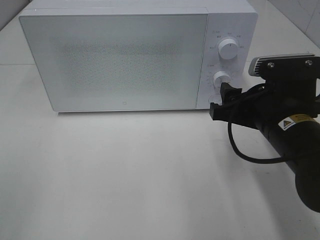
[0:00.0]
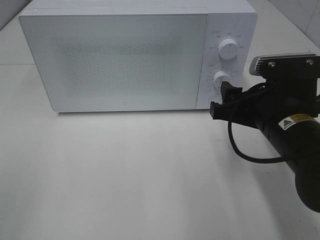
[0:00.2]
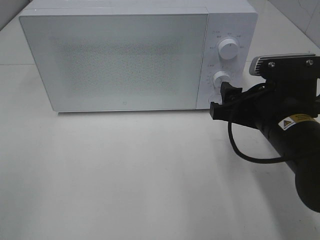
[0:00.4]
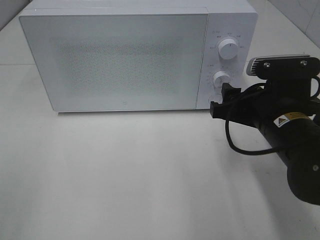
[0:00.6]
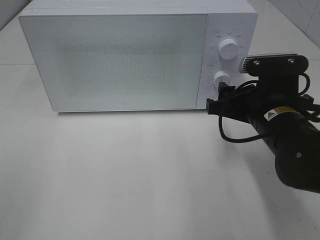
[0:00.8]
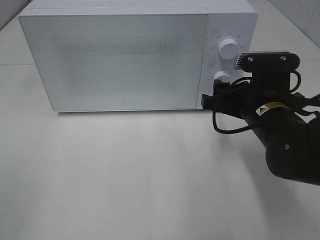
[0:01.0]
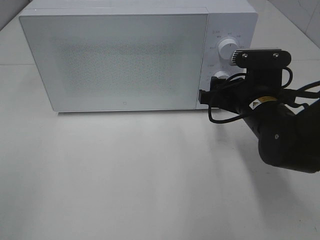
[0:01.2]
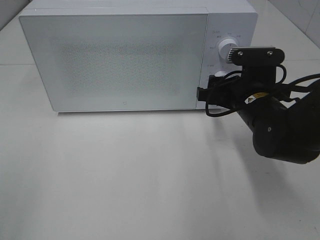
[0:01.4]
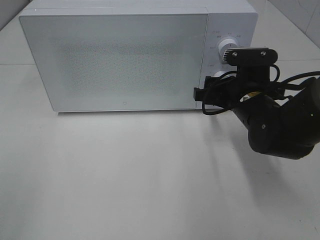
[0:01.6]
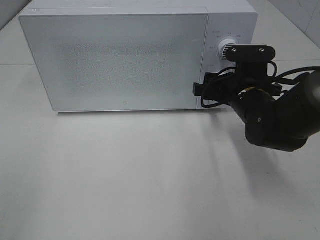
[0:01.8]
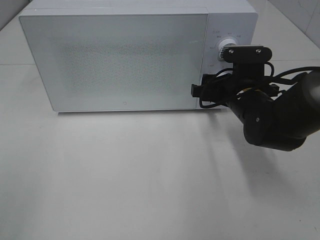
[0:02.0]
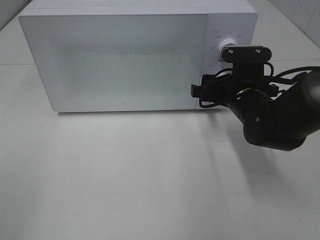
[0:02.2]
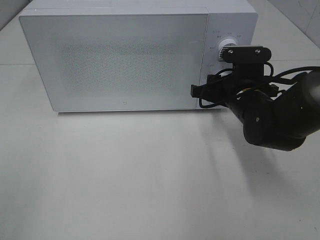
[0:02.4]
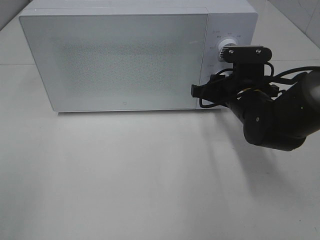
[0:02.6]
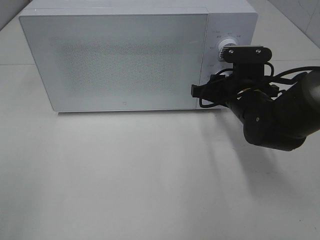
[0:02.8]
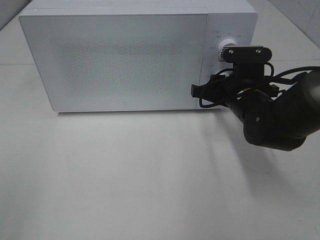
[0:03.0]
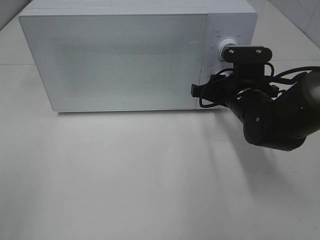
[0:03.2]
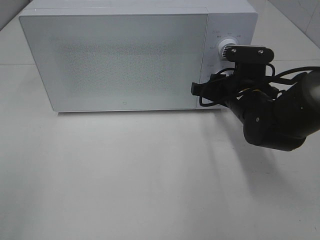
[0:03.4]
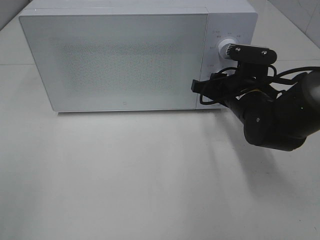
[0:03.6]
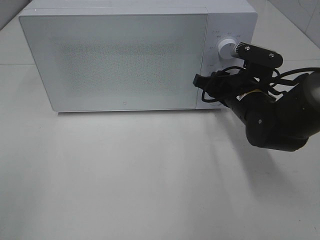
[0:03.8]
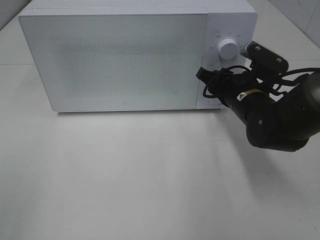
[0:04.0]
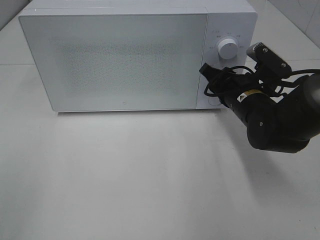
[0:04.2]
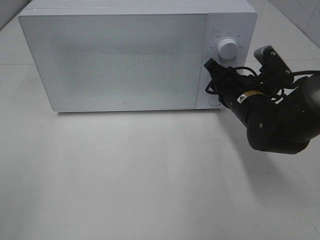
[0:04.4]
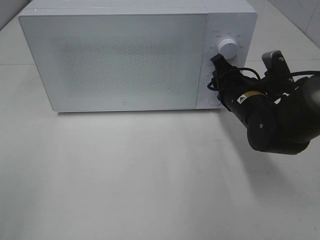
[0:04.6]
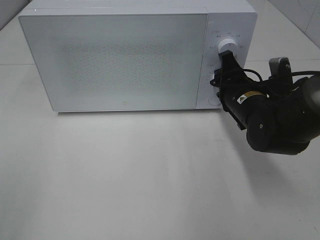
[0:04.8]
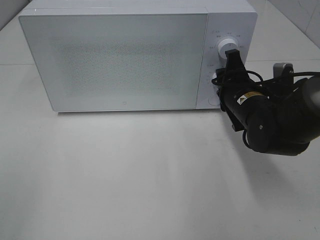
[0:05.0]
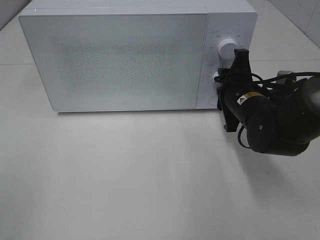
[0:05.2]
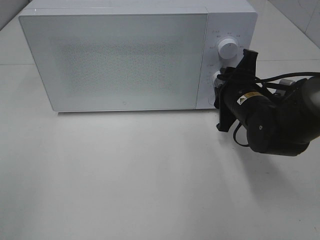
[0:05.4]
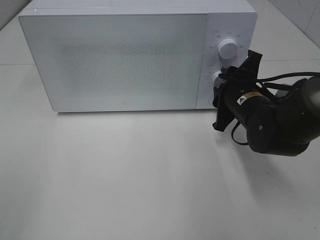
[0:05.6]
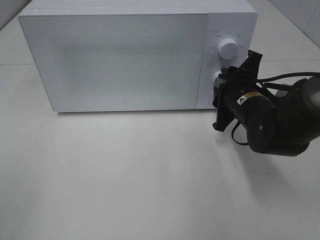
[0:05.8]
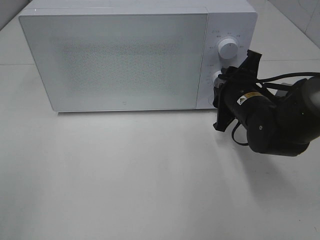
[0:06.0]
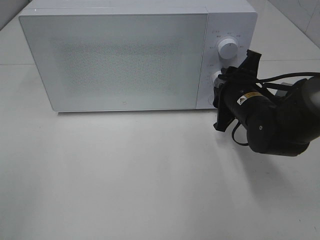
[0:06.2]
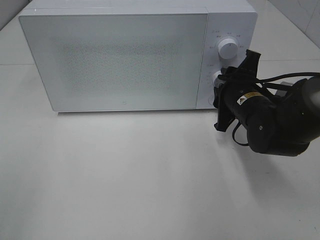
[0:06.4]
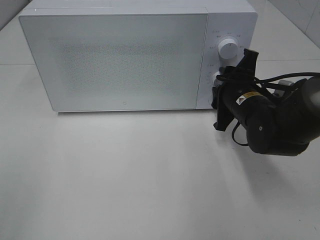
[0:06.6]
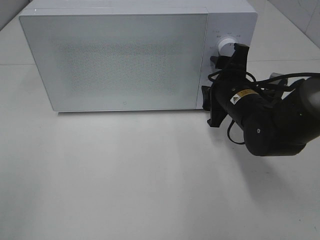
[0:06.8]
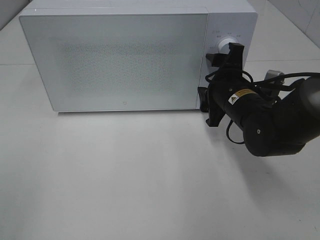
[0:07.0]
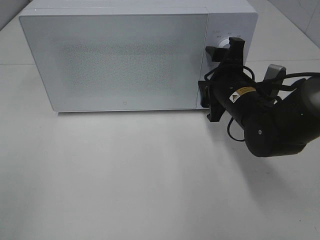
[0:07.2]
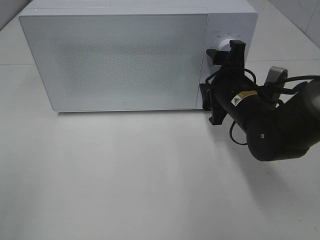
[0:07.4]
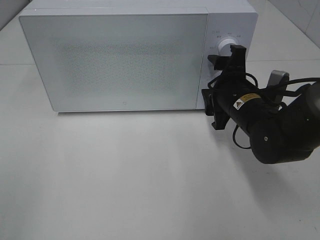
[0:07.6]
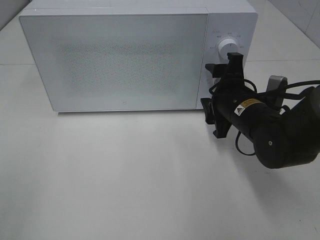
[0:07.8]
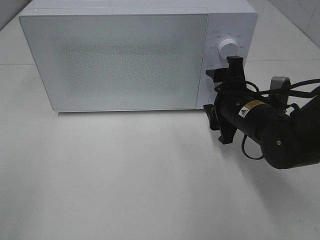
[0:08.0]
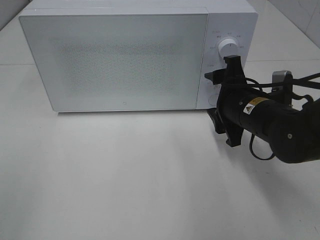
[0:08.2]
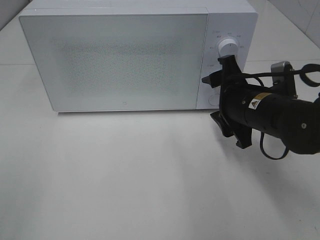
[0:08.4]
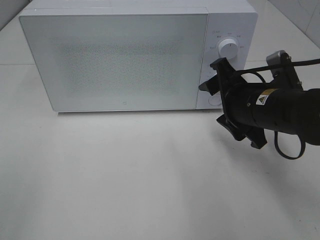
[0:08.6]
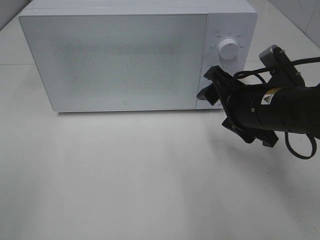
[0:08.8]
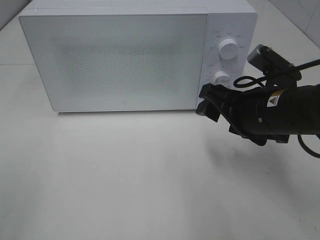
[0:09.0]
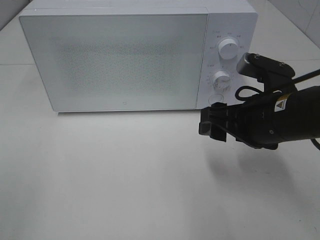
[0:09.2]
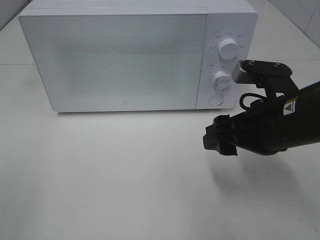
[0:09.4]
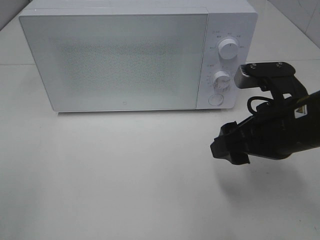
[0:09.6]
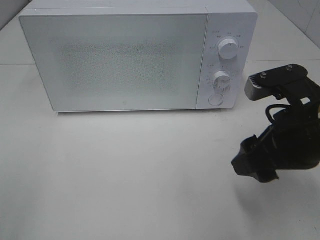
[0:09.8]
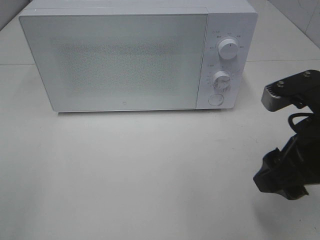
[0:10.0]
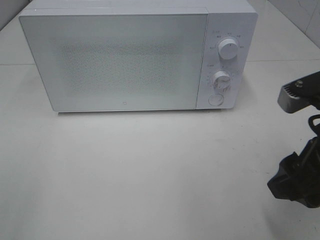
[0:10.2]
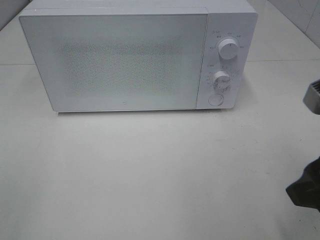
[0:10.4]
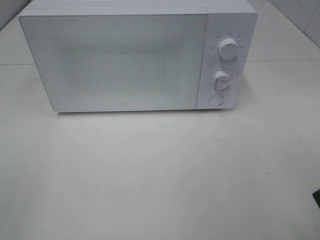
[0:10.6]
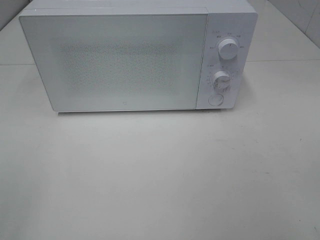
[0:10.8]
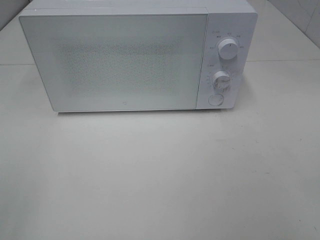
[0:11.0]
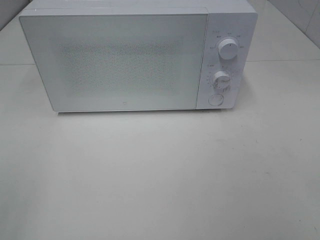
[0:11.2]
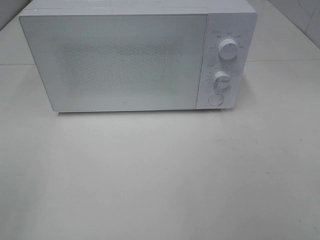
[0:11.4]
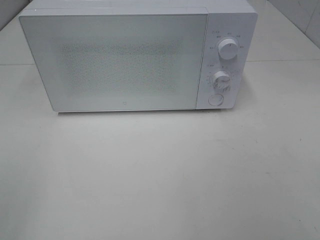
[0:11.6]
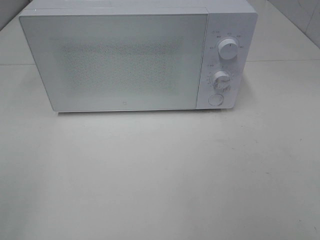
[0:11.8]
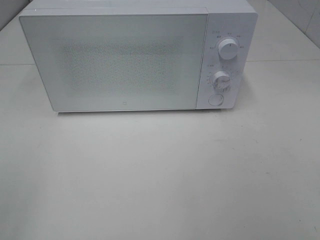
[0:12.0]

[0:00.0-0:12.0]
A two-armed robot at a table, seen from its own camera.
Task of the whole recording: Heat Sandwich.
Step, 0:00.0 to 0:07.0: Right hand: twist timer button.
0:00.0 to 0:01.6: The right gripper shifts approximately 10 cm forward.
0:01.6 to 0:03.0: The right gripper closes up.
0:06.0 to 0:07.6: The right gripper opens up.
0:07.6 to 0:09.0: The right gripper goes roughly 5 cm backward.
0:09.0 to 0:10.4: The right gripper moves backward, upward and to the right, roughly 15 cm.
0:10.4 to 0:12.0: The right gripper is displaced backward and to the right by approximately 15 cm.

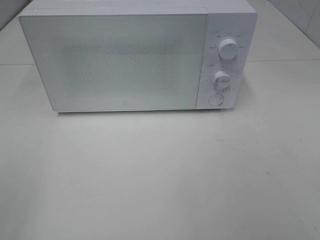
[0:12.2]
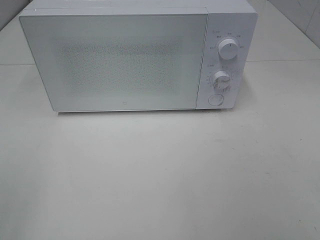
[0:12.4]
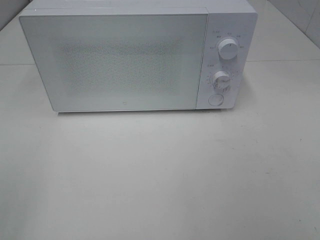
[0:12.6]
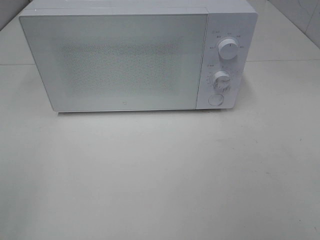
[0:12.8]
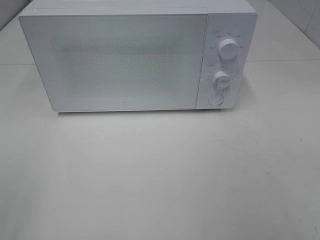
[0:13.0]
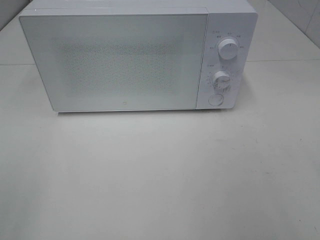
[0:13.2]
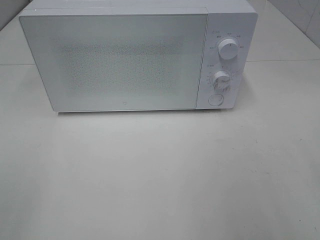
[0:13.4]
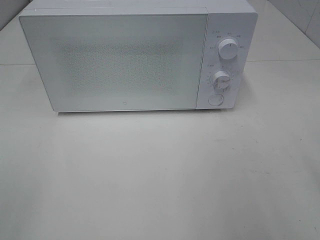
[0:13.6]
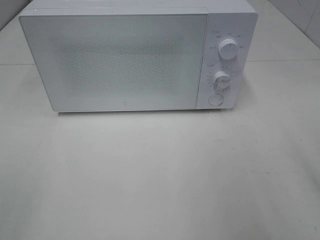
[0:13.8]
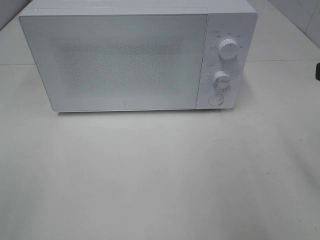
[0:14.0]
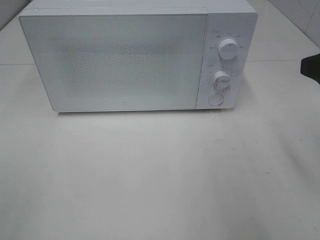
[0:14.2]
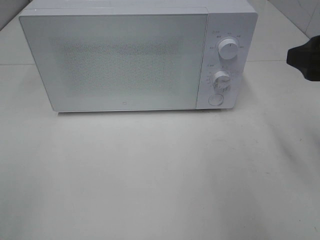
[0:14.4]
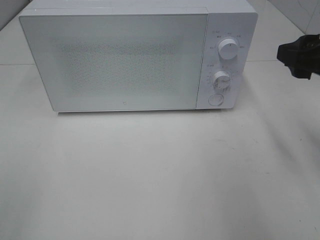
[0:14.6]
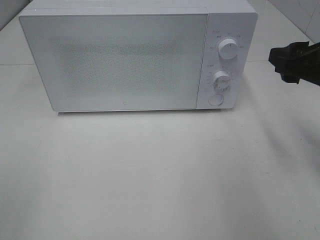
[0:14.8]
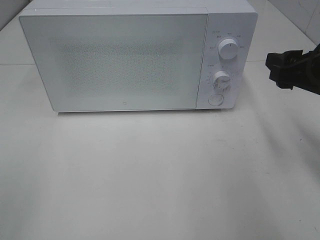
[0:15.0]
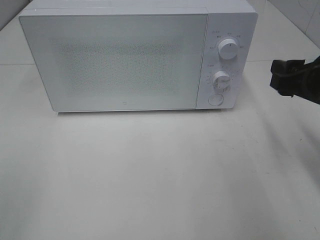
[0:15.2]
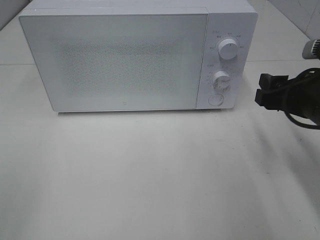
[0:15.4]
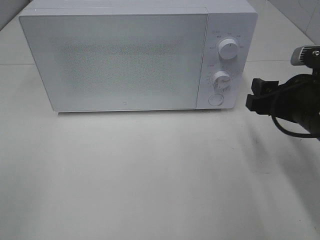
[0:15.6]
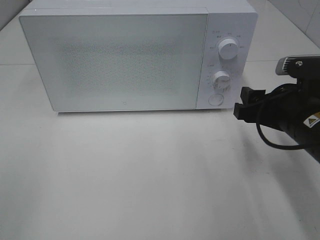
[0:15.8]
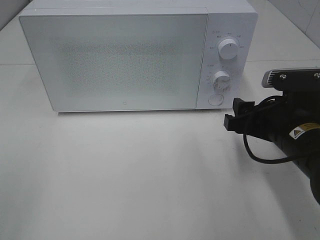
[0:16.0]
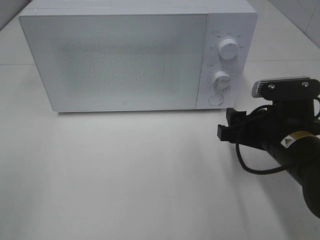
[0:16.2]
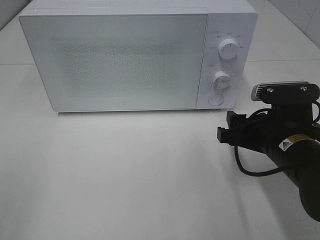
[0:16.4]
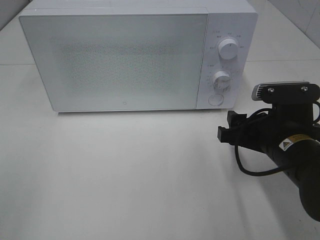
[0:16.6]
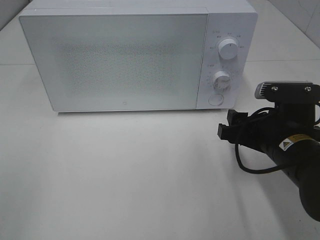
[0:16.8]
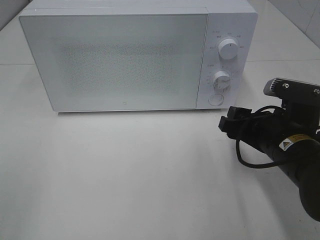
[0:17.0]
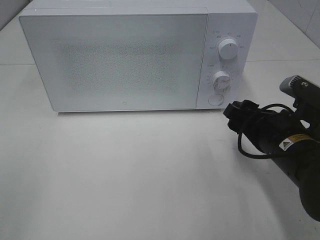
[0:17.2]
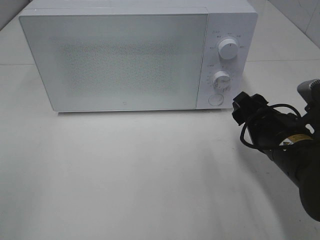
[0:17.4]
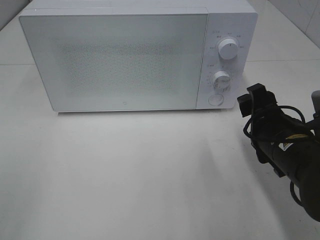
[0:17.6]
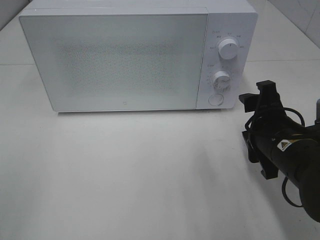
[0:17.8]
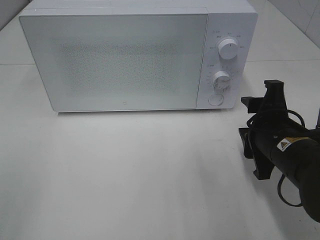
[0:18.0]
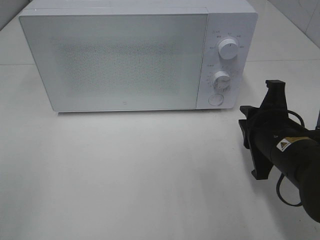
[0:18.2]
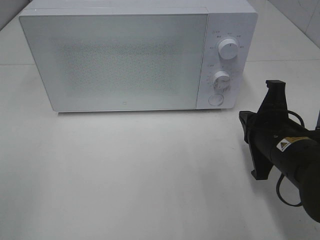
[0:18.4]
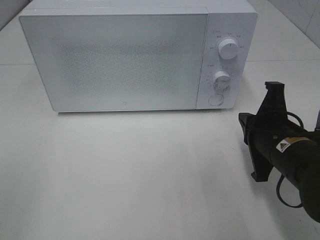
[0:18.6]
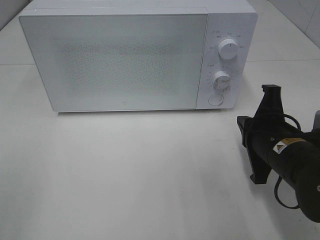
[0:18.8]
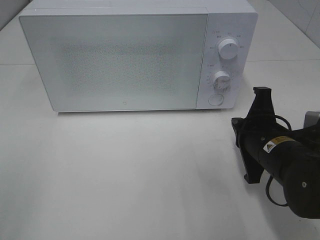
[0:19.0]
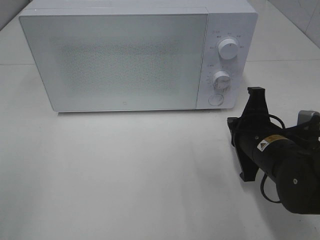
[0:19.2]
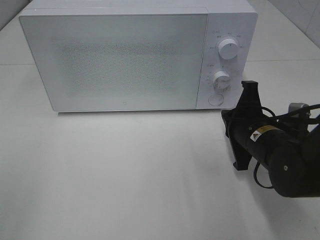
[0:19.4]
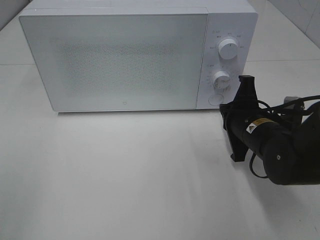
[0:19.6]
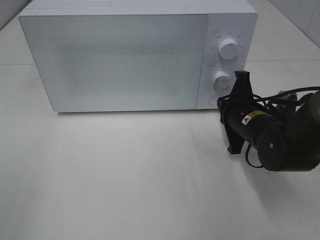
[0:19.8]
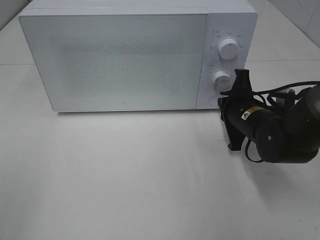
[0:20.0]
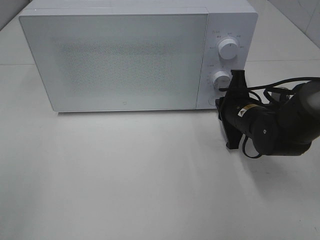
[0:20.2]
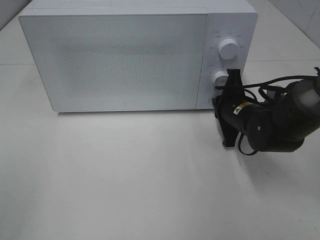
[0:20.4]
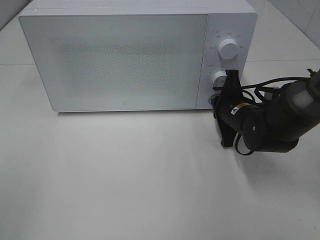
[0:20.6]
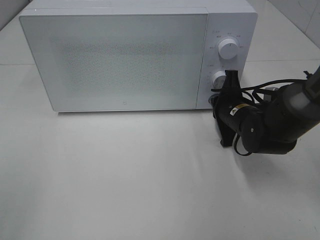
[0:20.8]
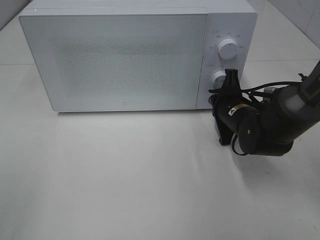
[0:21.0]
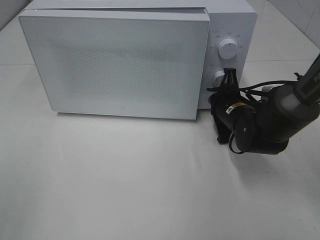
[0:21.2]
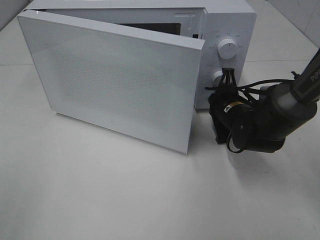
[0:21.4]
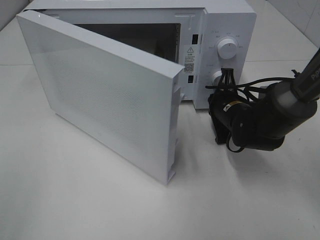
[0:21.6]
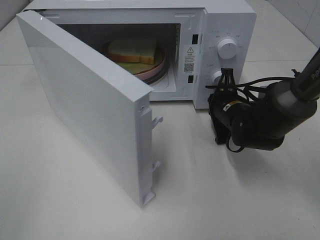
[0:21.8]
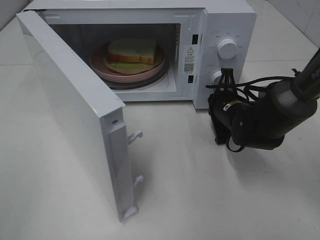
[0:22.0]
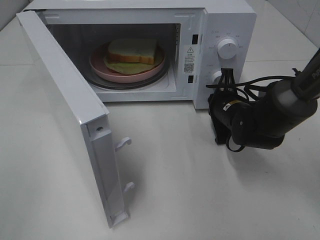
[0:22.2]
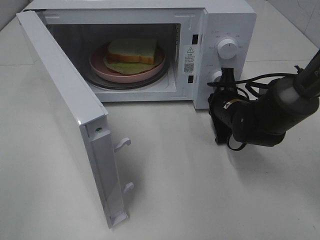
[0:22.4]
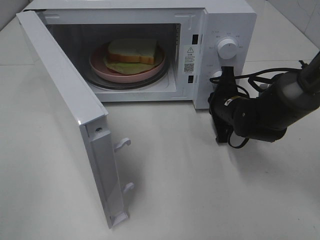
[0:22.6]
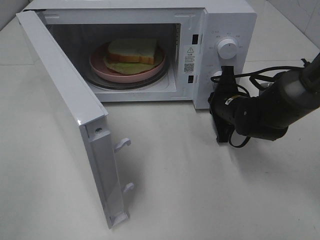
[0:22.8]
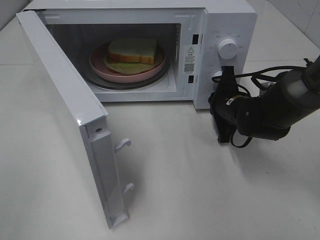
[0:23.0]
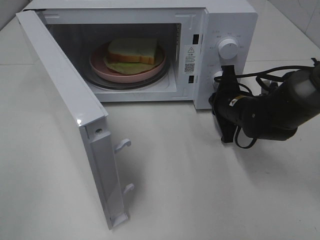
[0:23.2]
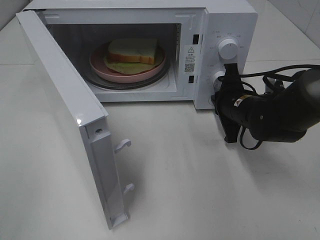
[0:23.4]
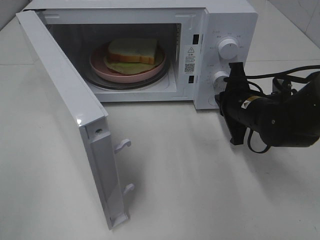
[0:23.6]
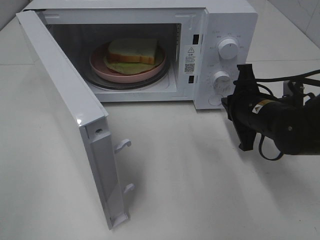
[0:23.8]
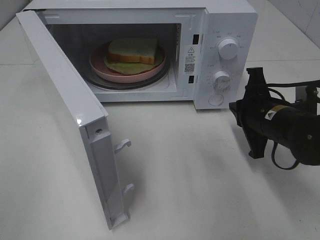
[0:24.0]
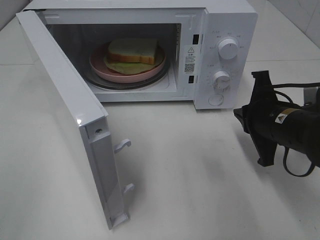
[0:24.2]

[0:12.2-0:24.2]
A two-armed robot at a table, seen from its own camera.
Task of the whole recording: Heat Sandwich.
Step, 0:12.2 to 0:23.6: Right hand: press the switch.
0:13.8 to 0:15.2: The right gripper heads downward and forward, covering approximately 15 cm.
0:15.2 to 0:16.6: The right gripper moves downward and to the left, approximately 10 cm.
0:16.6 to 0:18.2: The right gripper closes.
0:18.2 to 0:19.8: The right gripper is displaced forward by about 10 cm.
0:19.8 to 0:21.2: The right gripper moves forward, roughly 5 cm.
0:22.6 to 0:24.2: The right gripper travels backward and upward by roughly 10 cm.
